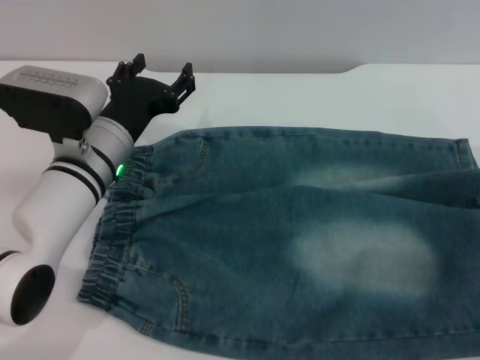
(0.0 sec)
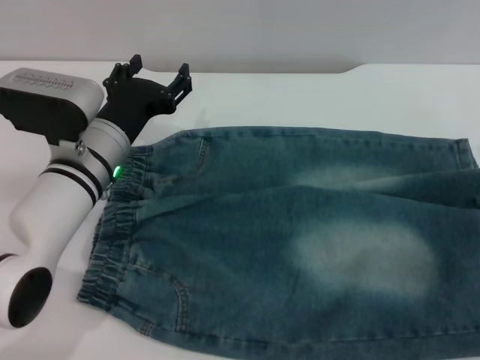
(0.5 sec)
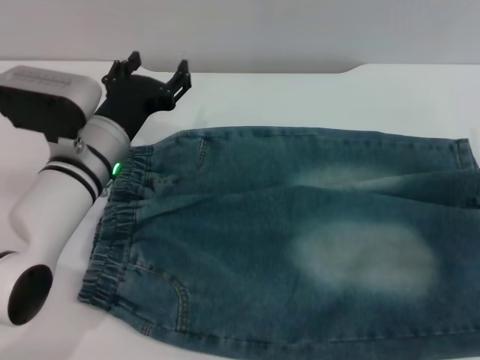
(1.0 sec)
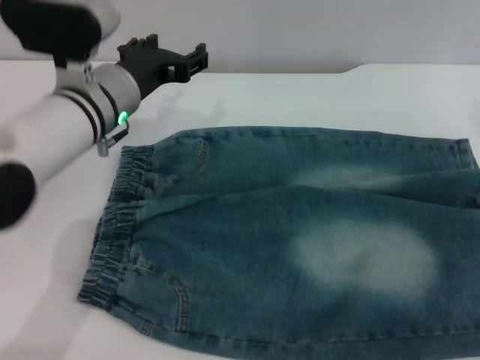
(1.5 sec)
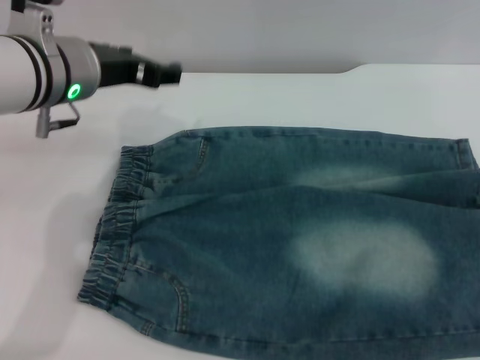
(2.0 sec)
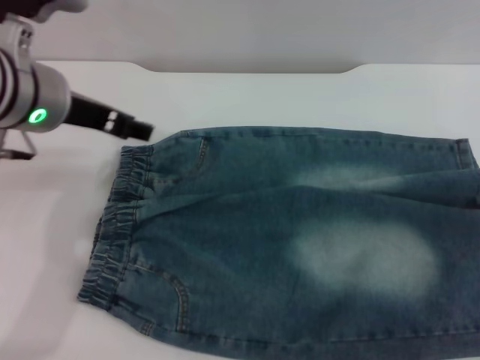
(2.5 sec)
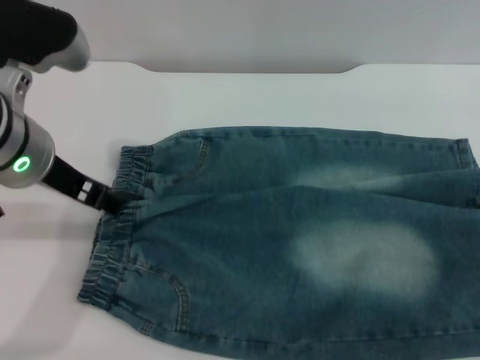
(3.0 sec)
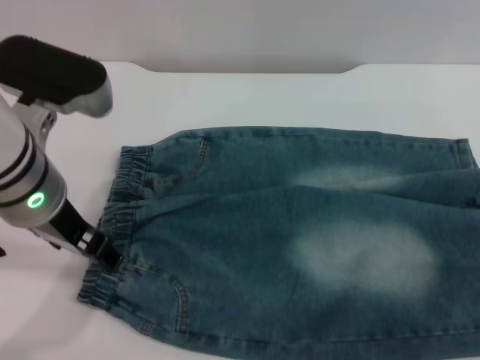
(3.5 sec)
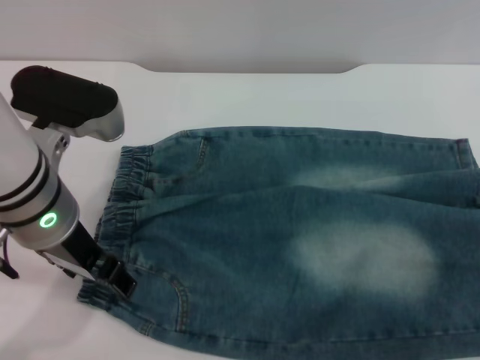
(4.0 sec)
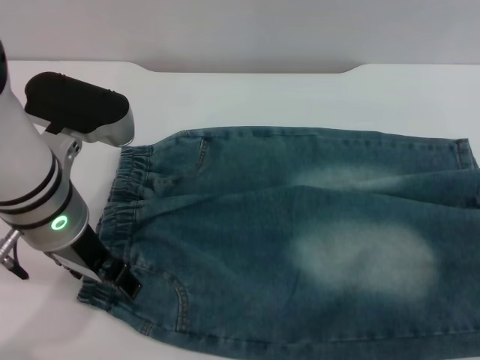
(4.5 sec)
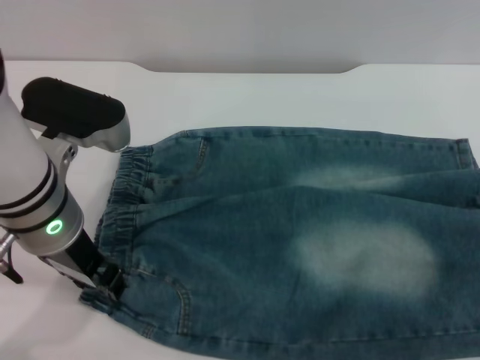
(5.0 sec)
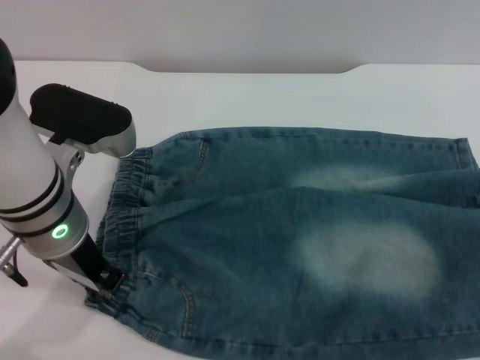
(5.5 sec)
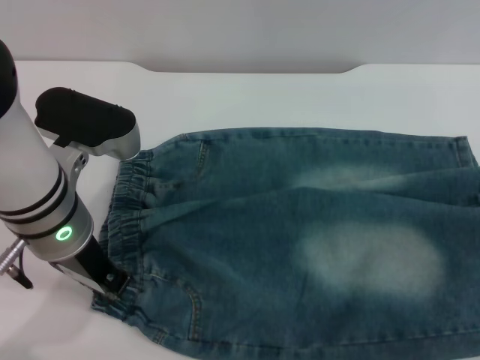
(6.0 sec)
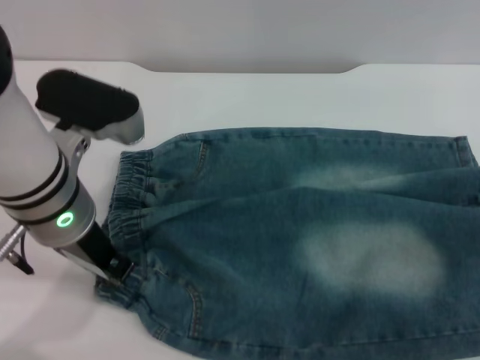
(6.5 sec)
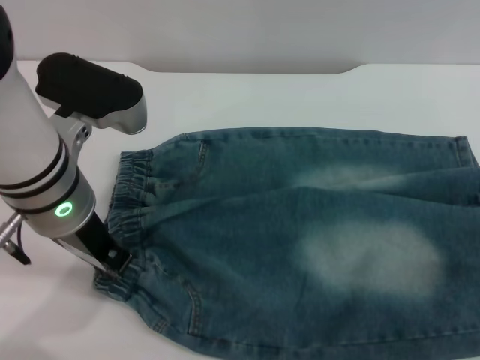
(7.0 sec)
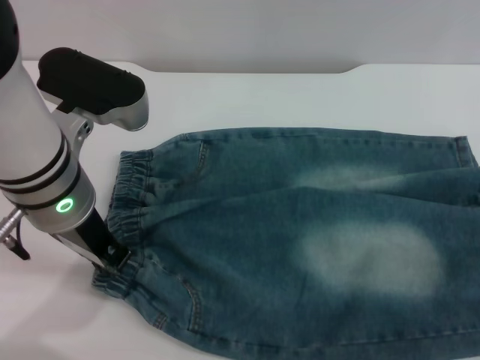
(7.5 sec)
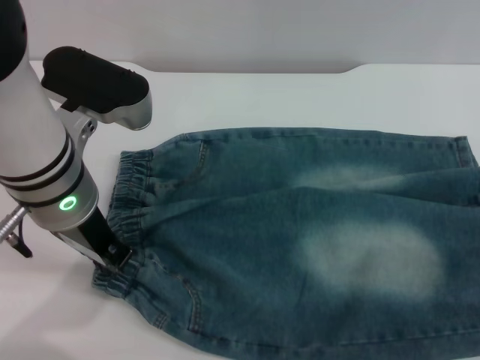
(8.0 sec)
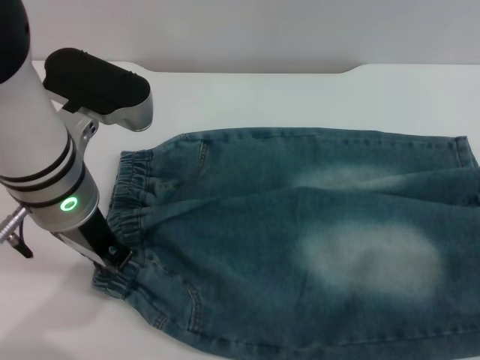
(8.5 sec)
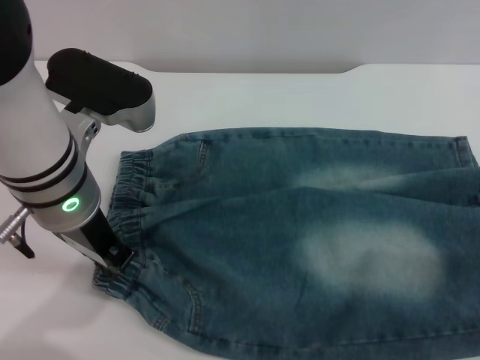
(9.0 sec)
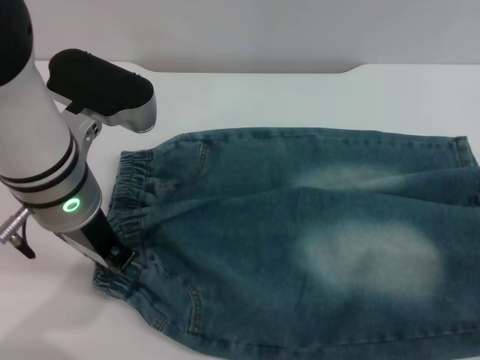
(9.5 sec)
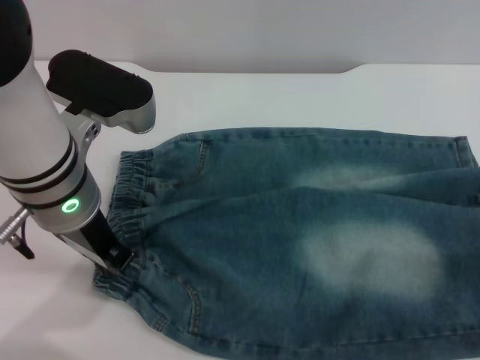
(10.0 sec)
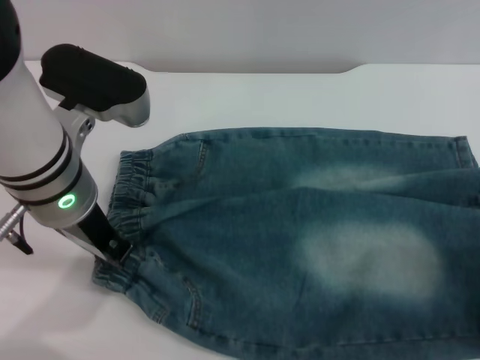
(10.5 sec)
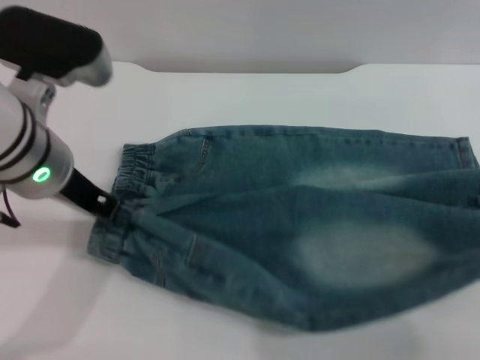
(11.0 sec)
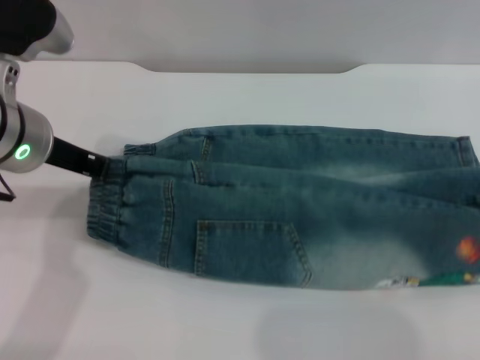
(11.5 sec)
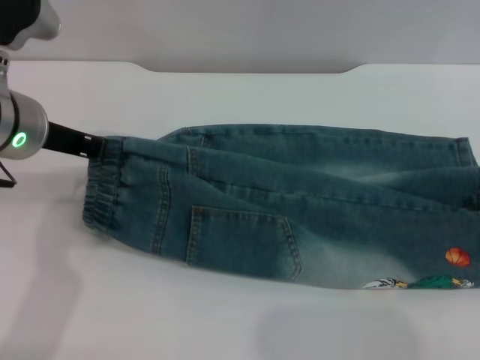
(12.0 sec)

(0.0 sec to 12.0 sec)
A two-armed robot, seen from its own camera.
0.0 sec - 2.0 sec: Both grippers move upward, roughly 15 cm.
2.0 sec - 4.0 sec: The left gripper moves backward, approximately 10 cm.
4.0 sec - 6.0 sec: The left gripper closes.
8.0 sec - 10.0 sec: There are only small adjustments of the grippers.
10.0 sec - 12.0 sec: The right gripper is displaced upward by about 10 cm, and closes its fingers. Meanwhile the left gripper shifts some 5 cm to the left.

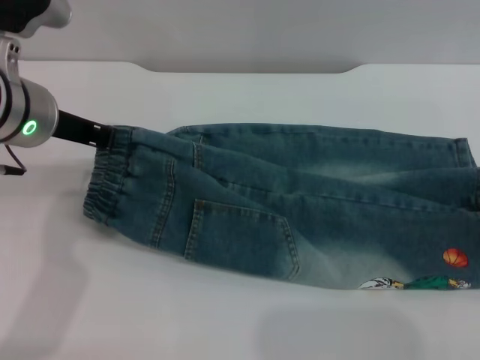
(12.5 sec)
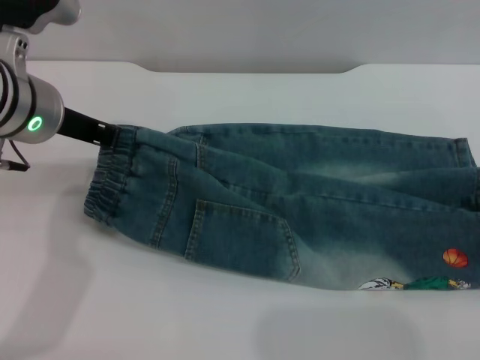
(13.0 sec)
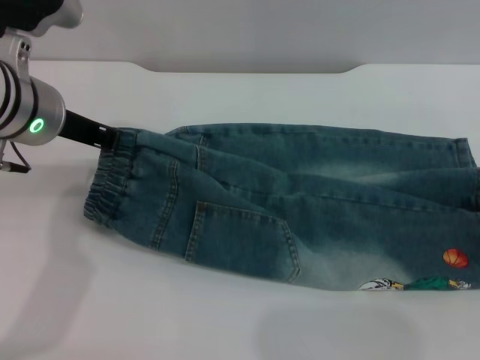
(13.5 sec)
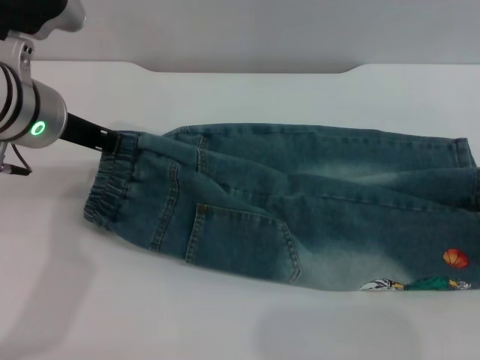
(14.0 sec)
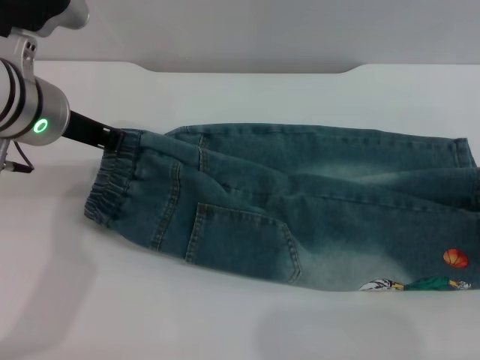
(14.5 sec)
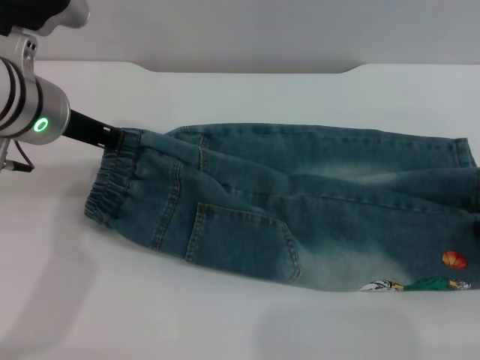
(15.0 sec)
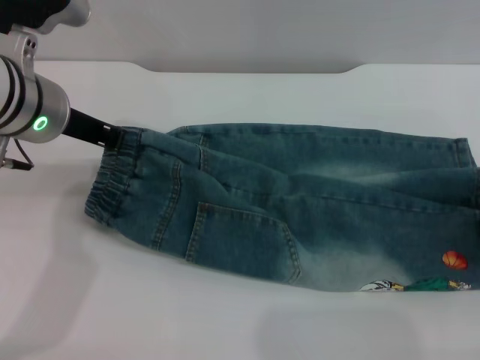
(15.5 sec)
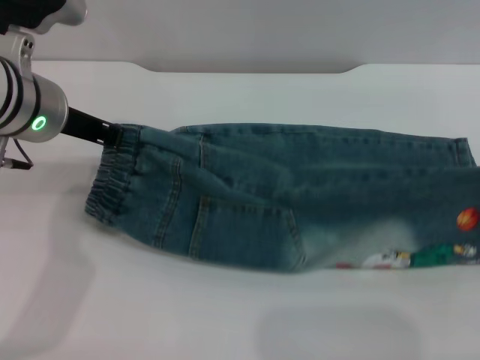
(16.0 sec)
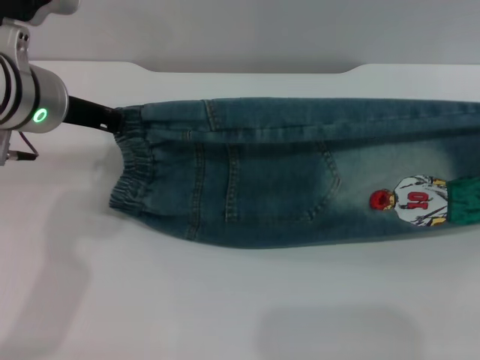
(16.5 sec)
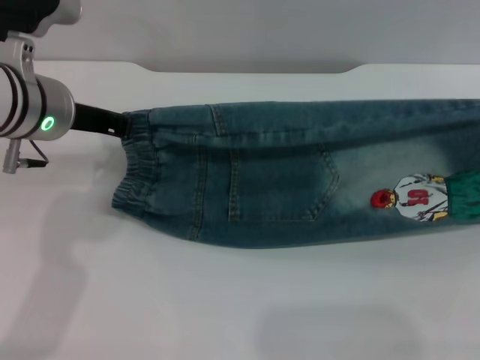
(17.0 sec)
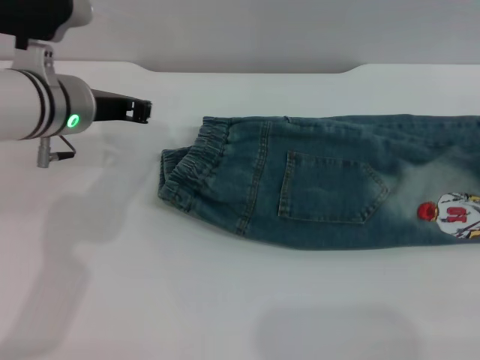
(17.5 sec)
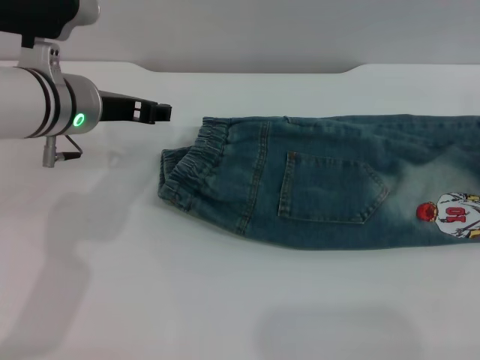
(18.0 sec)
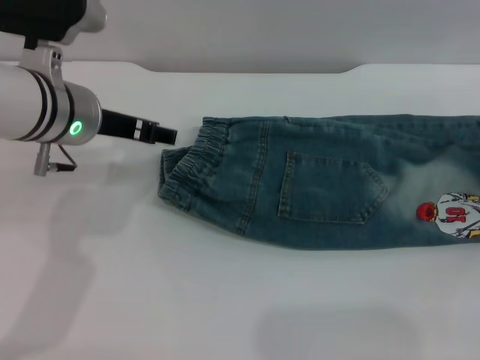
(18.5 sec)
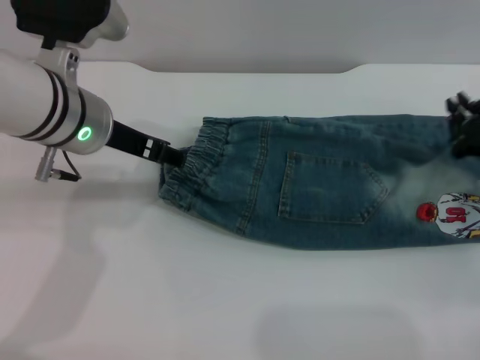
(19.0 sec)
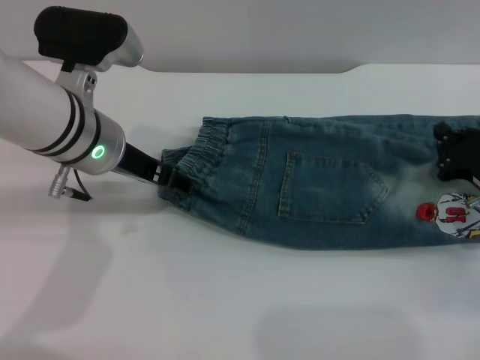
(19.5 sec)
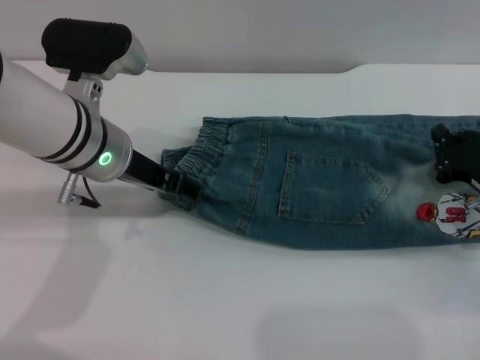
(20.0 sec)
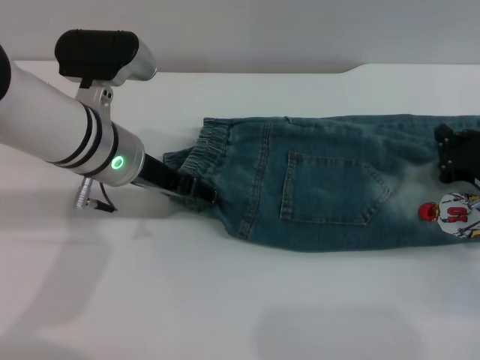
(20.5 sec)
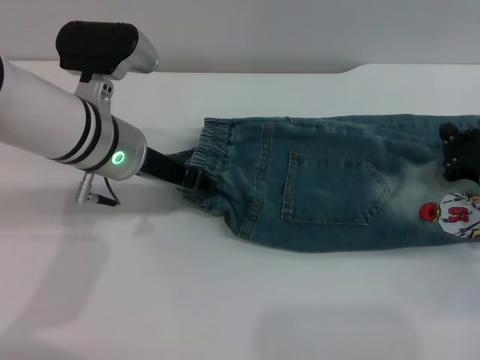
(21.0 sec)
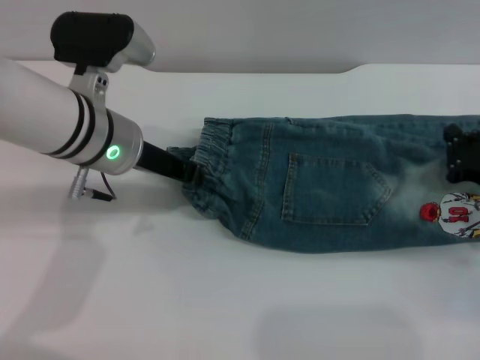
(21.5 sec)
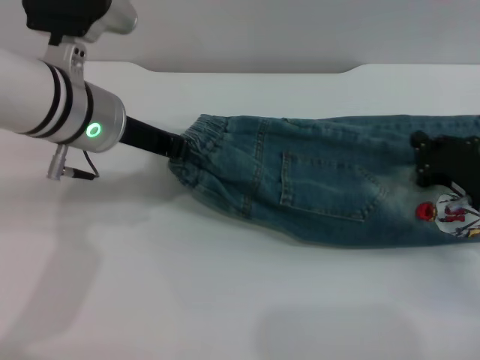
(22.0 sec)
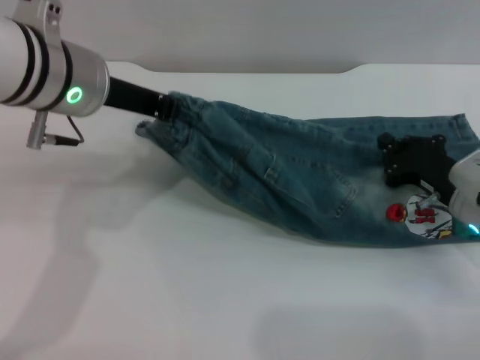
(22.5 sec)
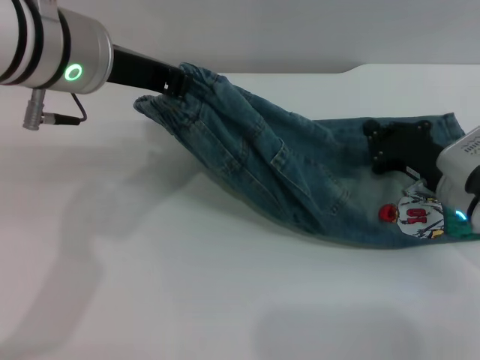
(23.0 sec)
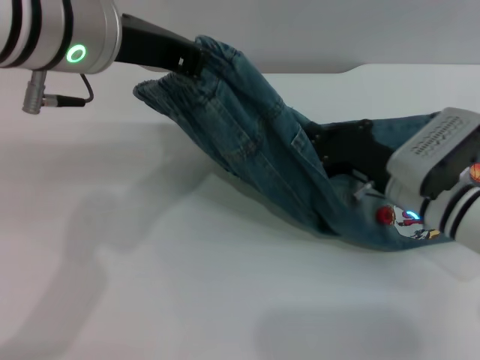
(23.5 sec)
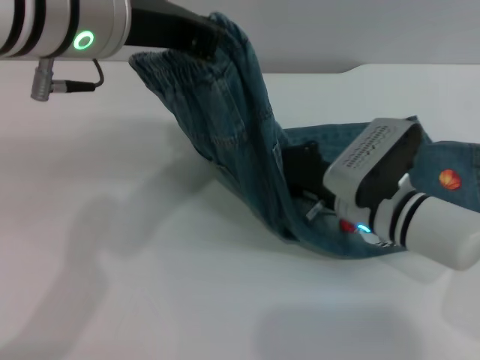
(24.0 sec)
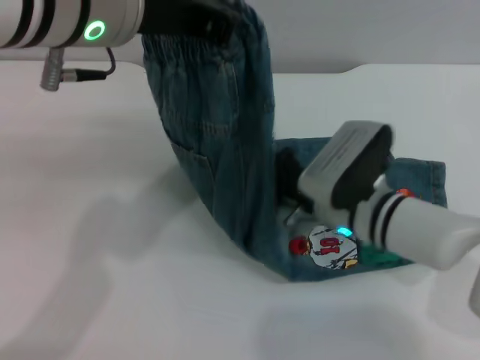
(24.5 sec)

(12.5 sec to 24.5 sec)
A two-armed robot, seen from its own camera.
Step, 12.5 sec - 18.0 sec: Fold the bottom of the pants upward with both grippers.
12.5 sec - 14.5 sec: The right gripper moves about 5 cm.
14.5 sec - 16.5 sec: The right gripper heads upward, covering about 10 cm, and closes.
16.5 sec - 18.5 sec: The right gripper moves downward, some 10 cm, and opens; the left gripper opens its fingers.
18.5 sec - 20.5 sec: The right gripper goes roughly 10 cm to the left and downward, and closes.
20.5 sec - 22.5 sec: The left gripper is displaced upward by some 10 cm, and closes up.
22.5 sec - 24.5 sec: The right gripper travels to the left by about 15 cm; the left gripper is displaced upward by about 5 cm.

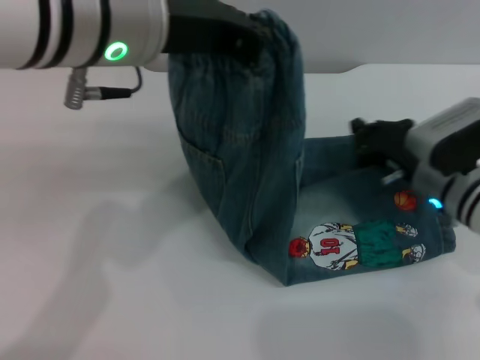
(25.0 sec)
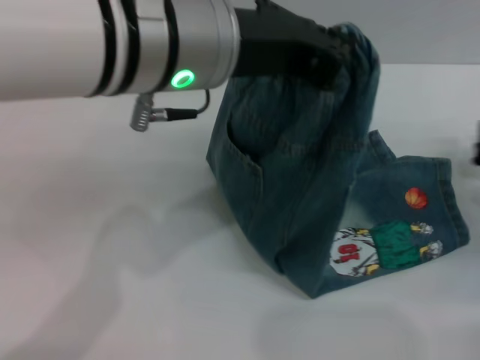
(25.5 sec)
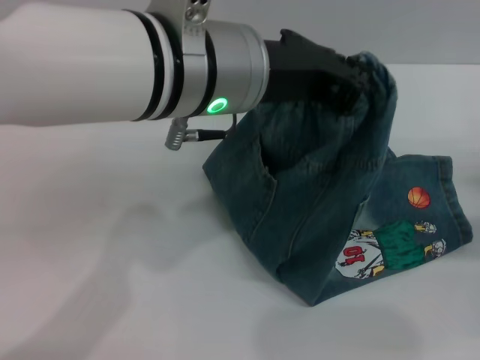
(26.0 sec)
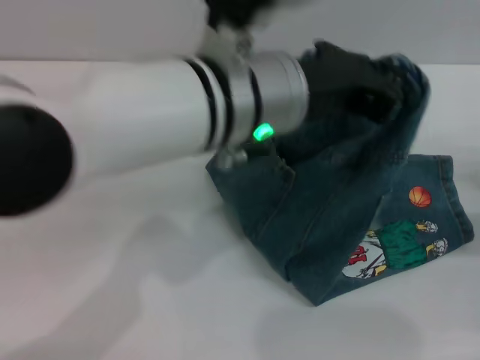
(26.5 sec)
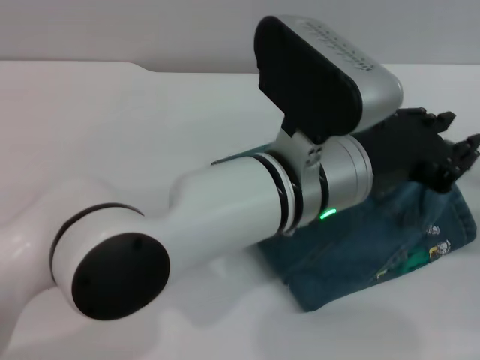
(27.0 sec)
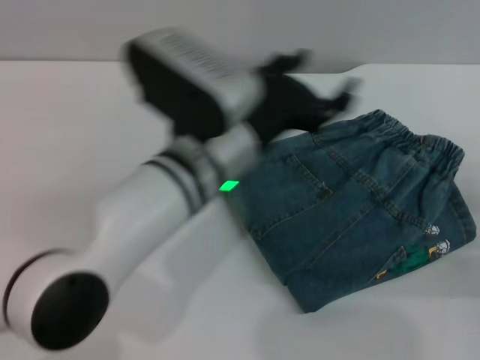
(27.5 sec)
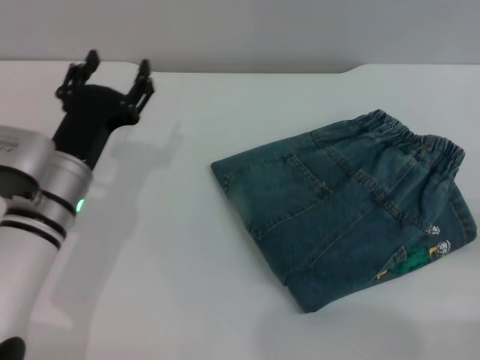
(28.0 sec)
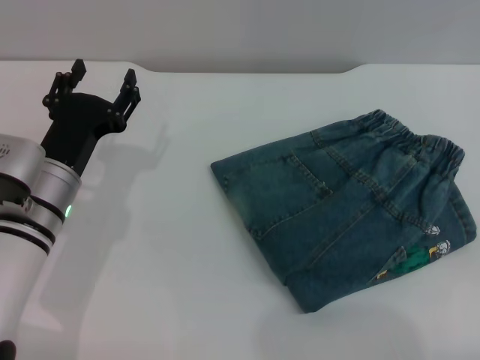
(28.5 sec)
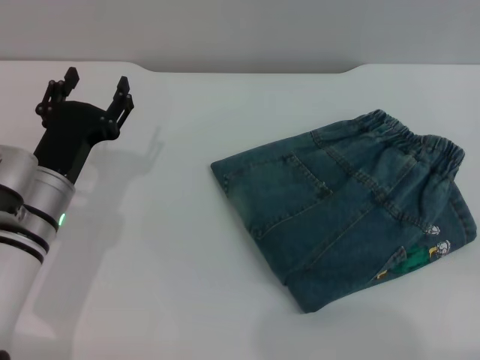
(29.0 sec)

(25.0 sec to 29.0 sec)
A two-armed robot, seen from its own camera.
Step, 25.0 sec - 27.0 sec: Fold the pants from left to right with the left gripper.
25.0 sec - 27.0 sec: The right gripper moves to the right and backward, about 15 cm. Meanwhile the left gripper heads to the right and downward, covering some 15 cm.
27.0 sec - 29.0 sec: The left gripper travels to the left and downward by approximately 25 cm, and opens its fingers; the right gripper travels backward by approximately 15 cm, and opens.
